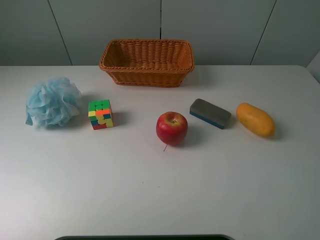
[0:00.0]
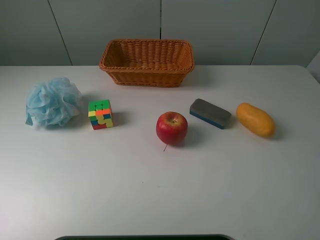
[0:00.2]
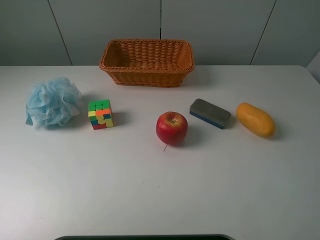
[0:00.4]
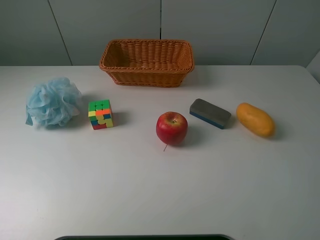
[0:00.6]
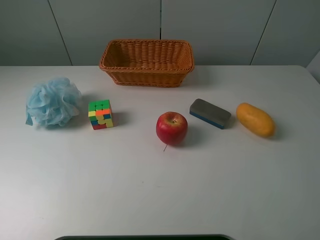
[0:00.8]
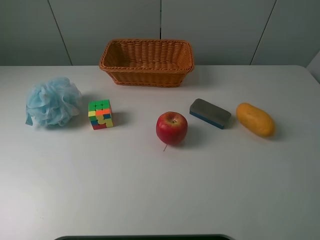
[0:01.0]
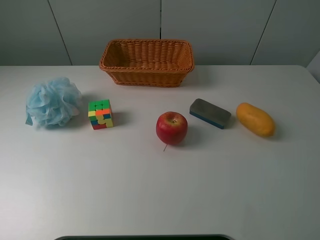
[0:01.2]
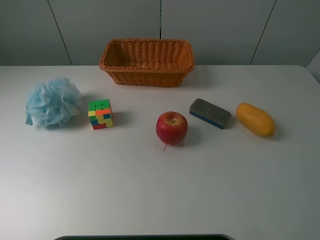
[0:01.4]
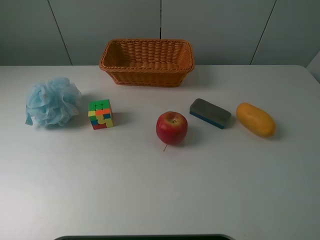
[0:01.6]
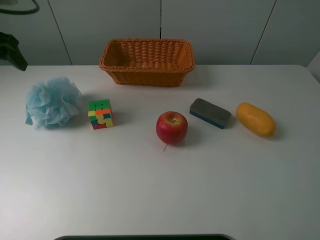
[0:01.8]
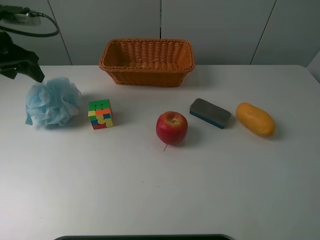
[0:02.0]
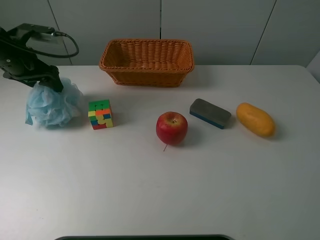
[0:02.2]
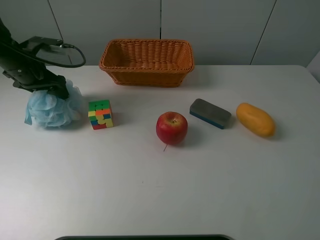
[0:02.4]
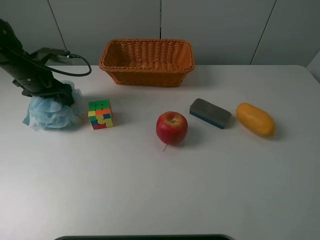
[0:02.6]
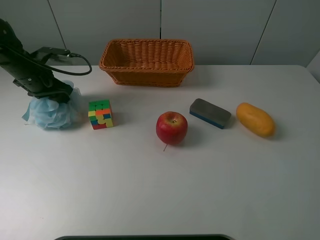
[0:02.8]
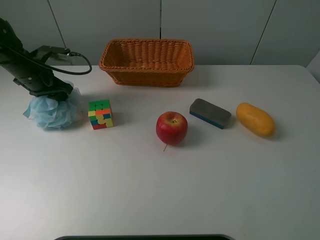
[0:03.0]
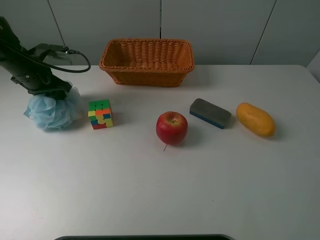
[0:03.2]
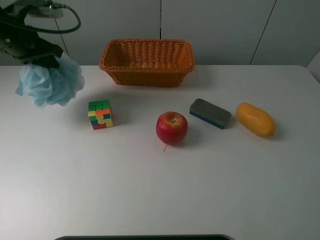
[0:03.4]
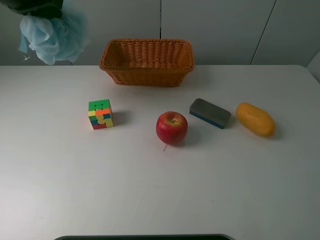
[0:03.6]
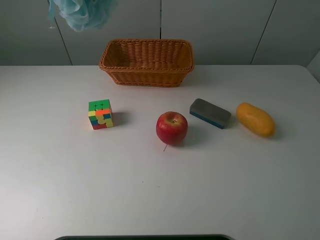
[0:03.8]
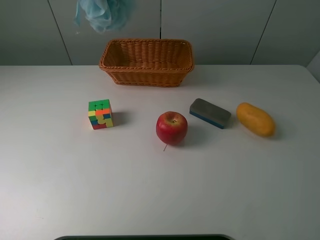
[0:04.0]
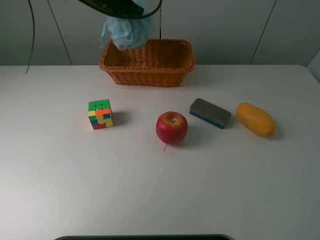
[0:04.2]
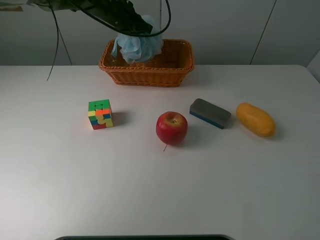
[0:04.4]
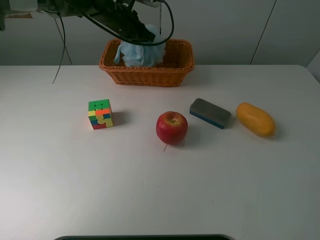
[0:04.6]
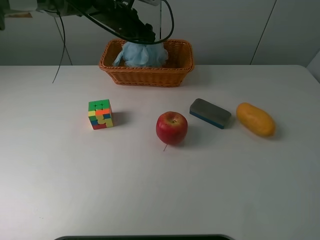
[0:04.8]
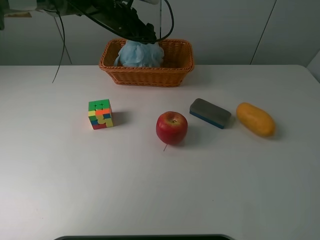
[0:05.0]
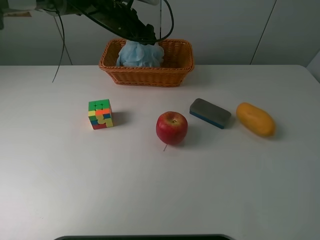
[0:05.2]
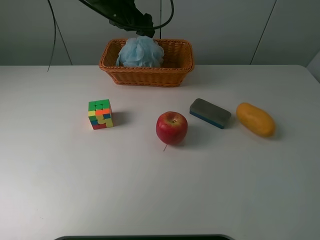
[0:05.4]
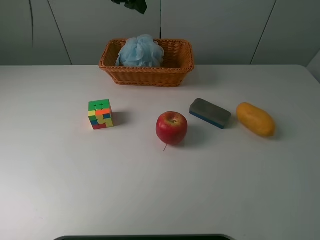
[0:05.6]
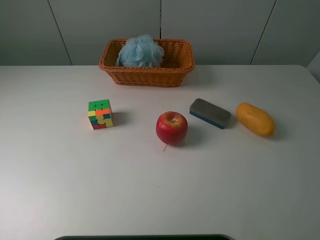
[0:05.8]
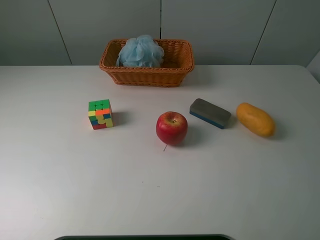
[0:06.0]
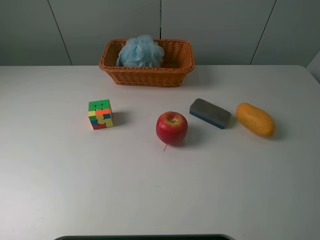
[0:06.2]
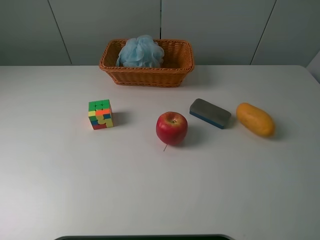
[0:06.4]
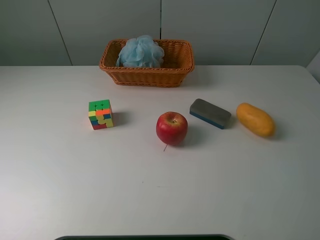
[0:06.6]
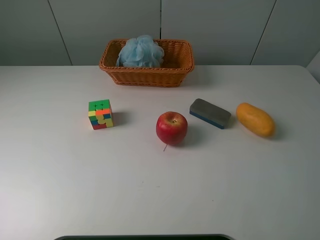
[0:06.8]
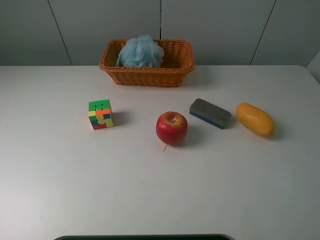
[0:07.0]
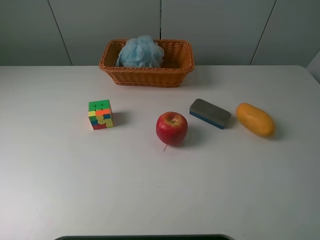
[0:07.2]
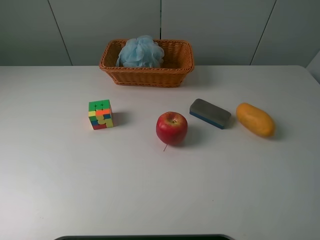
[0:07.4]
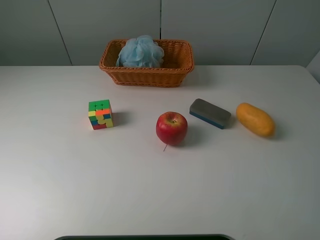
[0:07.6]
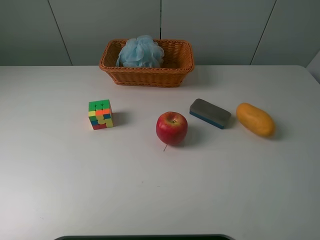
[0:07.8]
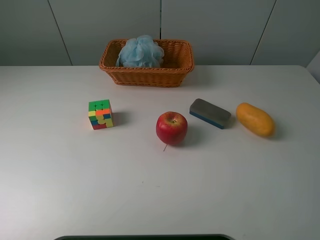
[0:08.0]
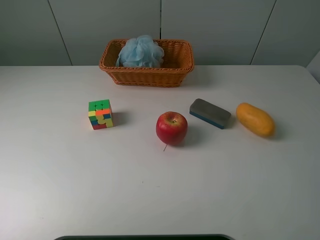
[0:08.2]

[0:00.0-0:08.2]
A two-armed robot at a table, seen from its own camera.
Task of the whole recording: use a picker to grab the item closest to the cube and place it in the basket.
Step, 0:00.0 to 0:02.8: Grasp the Shower puff with the left gripper.
Step, 0:03.0 to 0:05.0: Place the Shower puff into the basket with the left gripper.
0:00.0 to 0:01.6: The left gripper travels forward by approximately 30 cm.
0:01.6 to 0:03.2: The left gripper shifts about 20 cm downward and forward, and closes.
0:03.2 to 0:05.0: The left gripper travels to the right and forward by approximately 25 cm, and opens its fingers.
0:05.0 to 0:06.6: The left gripper heads backward, upward and to the left, covering about 70 cm.
